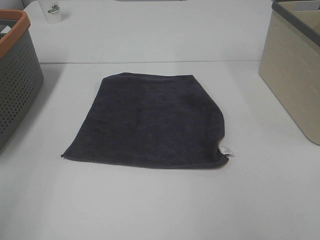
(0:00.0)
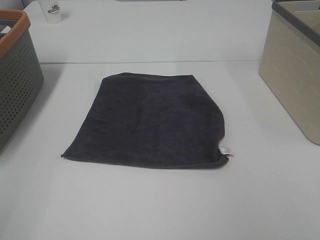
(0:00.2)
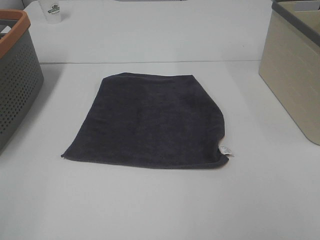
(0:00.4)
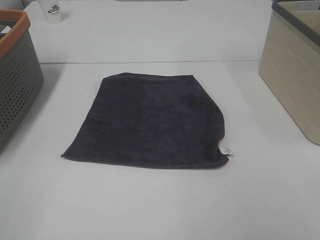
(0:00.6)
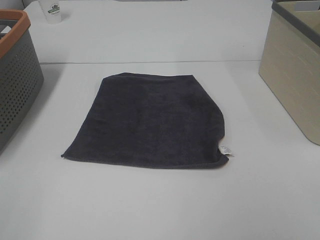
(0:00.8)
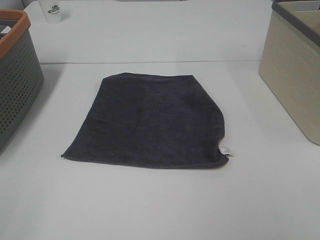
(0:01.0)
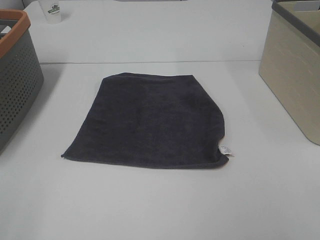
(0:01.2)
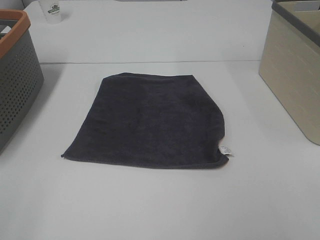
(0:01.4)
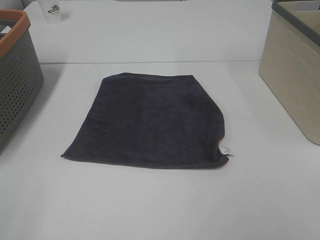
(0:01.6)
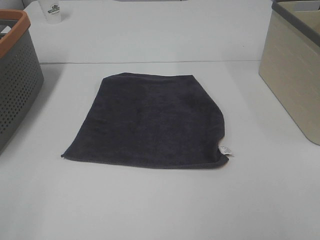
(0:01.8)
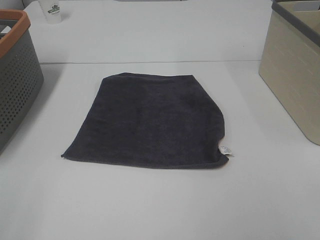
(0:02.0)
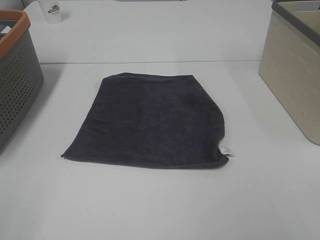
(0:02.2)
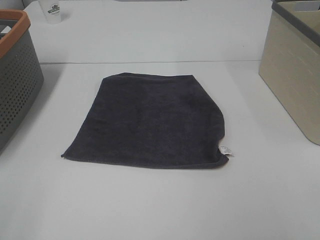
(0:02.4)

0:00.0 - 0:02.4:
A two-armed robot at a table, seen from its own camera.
Task of the whole recording: Remove the towel and place it.
0:01.2 - 0:02.4: Both grippers stay about where they are.

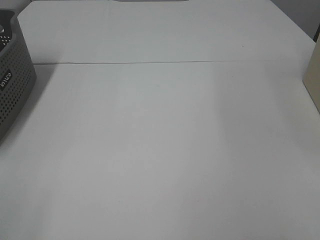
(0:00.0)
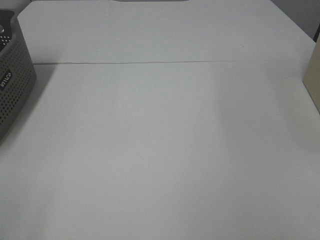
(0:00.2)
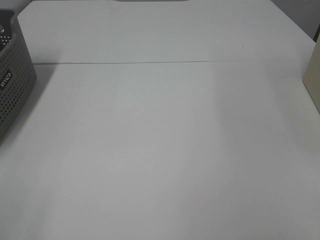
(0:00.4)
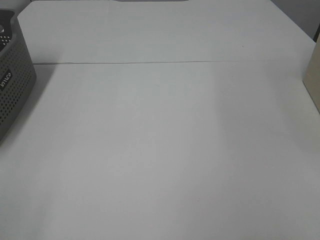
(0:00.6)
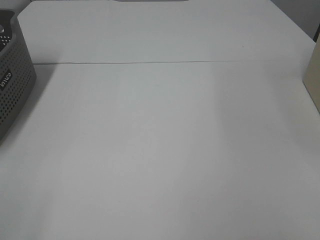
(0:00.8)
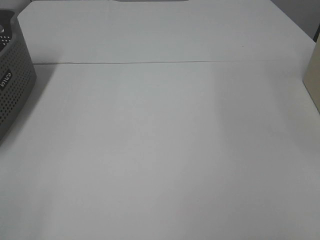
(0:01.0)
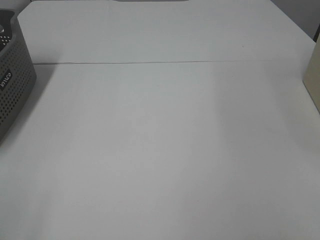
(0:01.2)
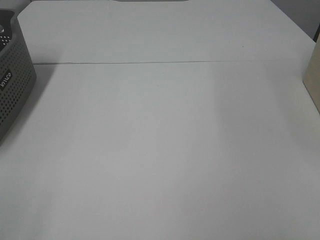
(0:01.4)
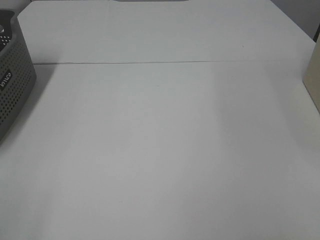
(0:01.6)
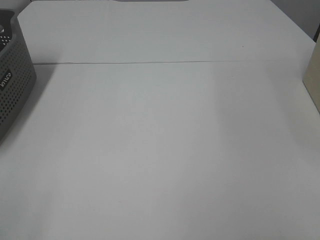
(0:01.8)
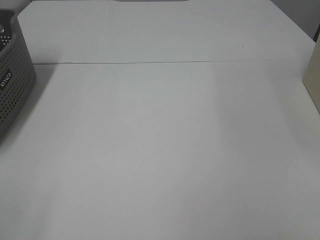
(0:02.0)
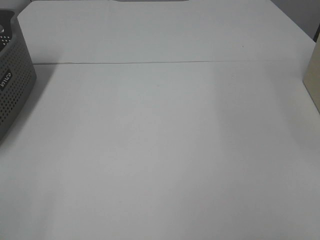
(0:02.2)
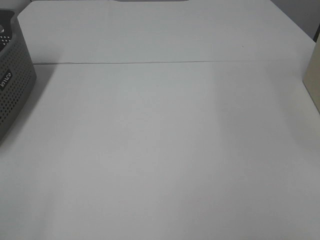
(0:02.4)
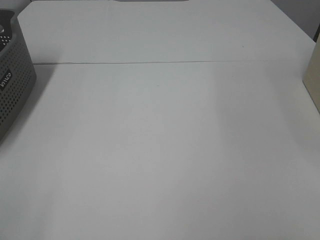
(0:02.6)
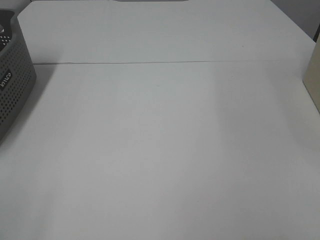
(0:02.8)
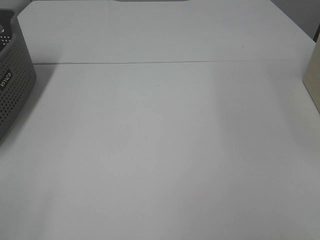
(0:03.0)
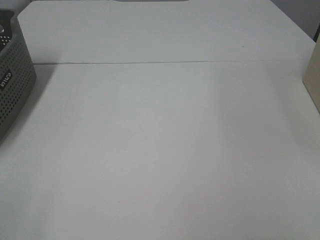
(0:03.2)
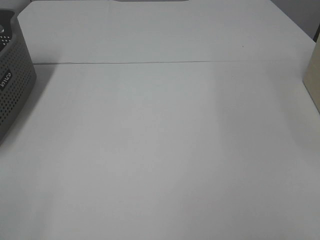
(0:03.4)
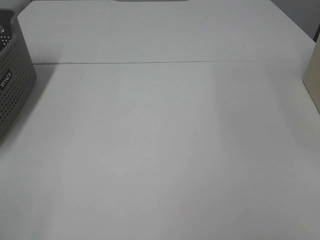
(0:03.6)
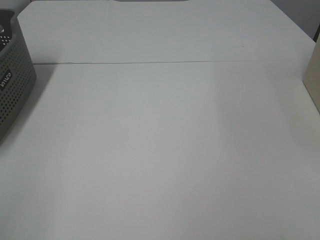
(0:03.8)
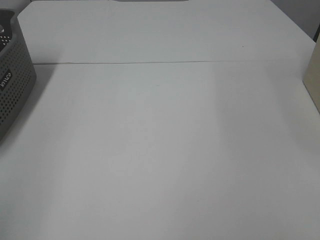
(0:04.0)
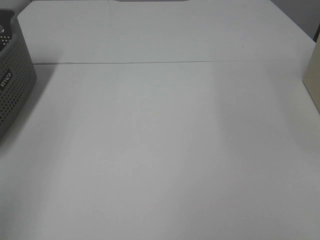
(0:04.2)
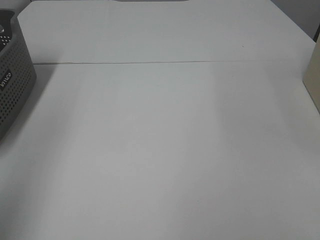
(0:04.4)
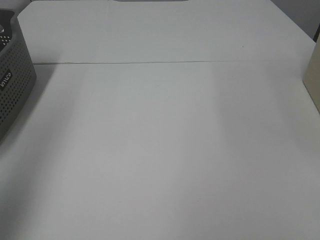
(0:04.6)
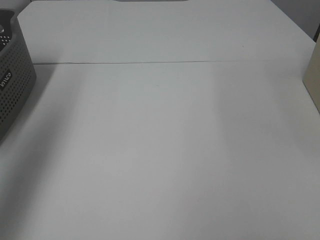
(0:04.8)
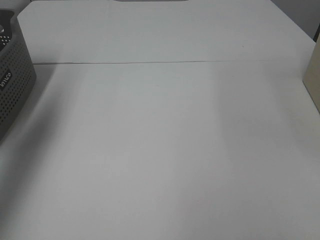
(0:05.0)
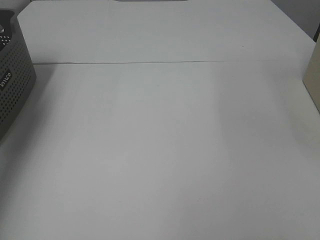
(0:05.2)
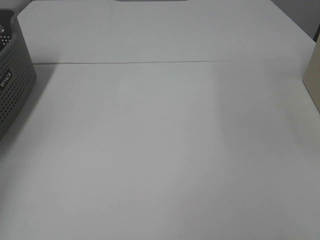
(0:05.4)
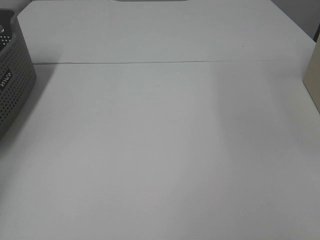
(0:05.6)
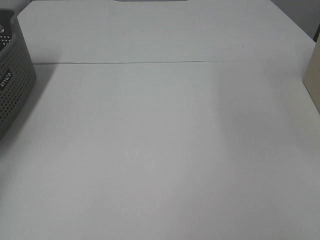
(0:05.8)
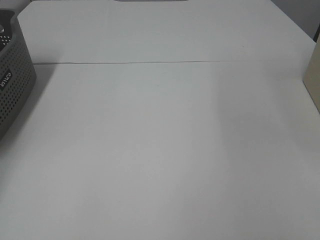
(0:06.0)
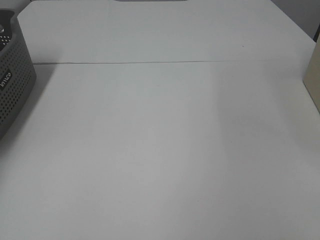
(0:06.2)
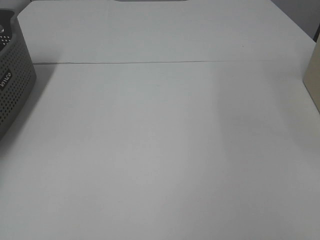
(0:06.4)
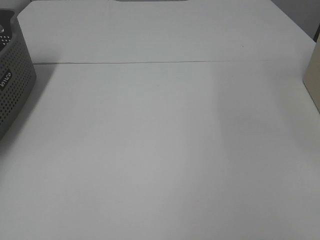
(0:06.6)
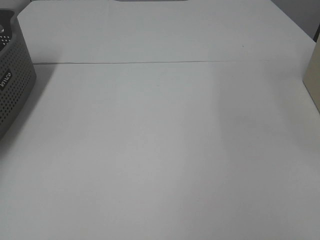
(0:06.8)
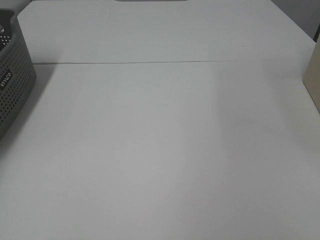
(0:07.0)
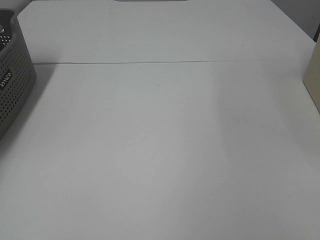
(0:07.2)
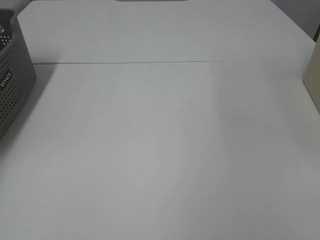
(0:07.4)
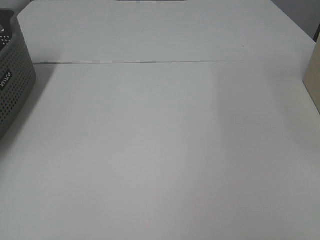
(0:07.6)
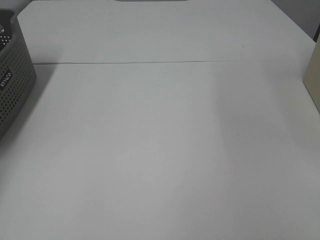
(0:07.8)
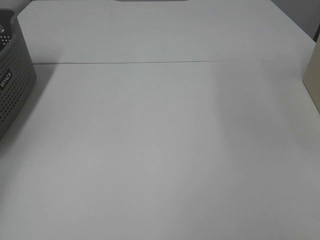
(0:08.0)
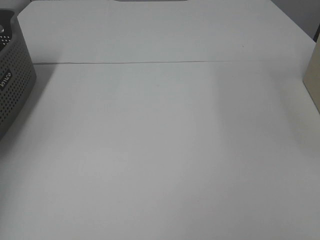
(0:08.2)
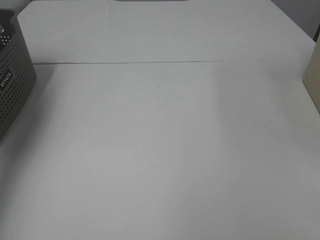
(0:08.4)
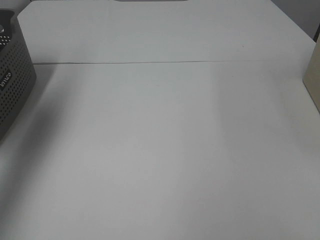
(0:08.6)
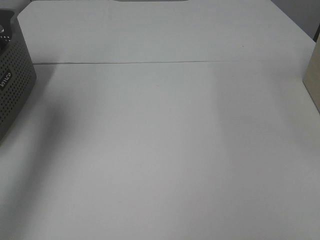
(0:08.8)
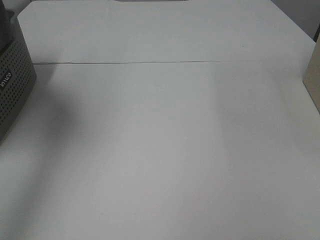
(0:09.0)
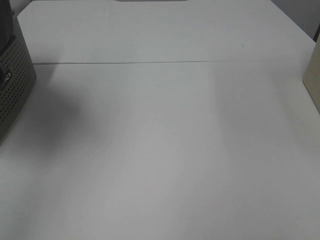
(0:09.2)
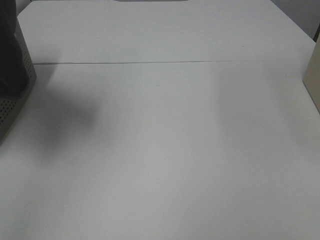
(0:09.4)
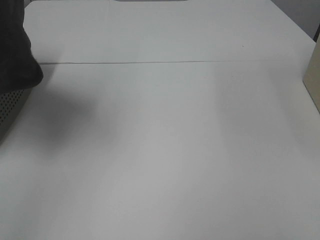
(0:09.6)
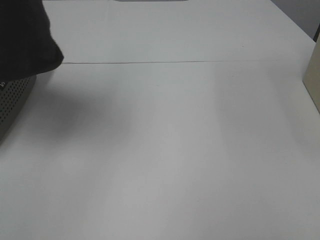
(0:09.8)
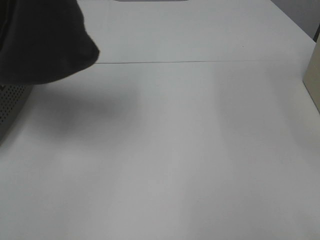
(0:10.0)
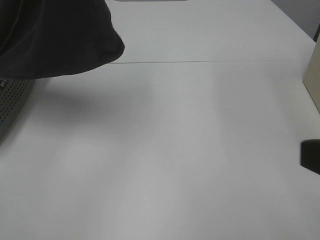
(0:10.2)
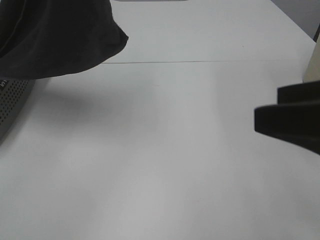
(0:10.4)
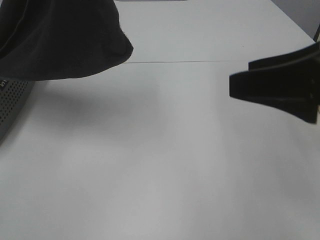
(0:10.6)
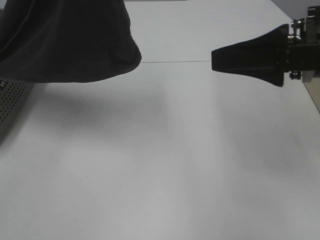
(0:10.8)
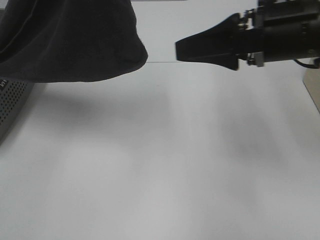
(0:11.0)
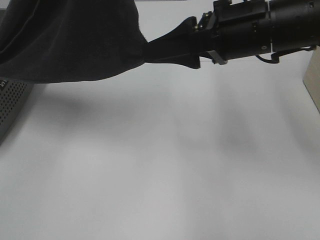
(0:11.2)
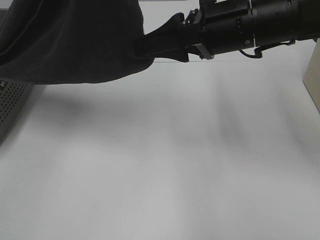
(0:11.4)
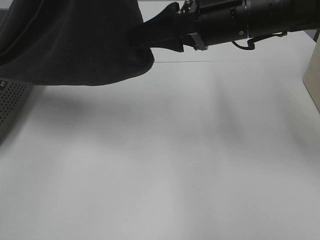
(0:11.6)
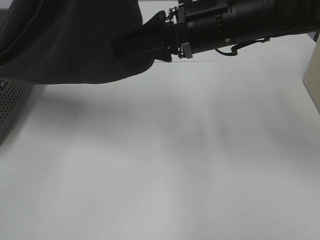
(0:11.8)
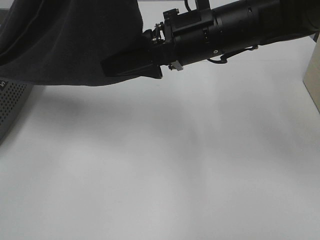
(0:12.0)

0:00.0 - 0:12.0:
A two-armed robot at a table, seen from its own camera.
Task of the whole recording: Remove the towel and place it.
0:00.0 - 0:03.0: Both grippers stay put.
0:03.0 - 0:04.4: The left gripper travels upward and forward by roughly 15 cm.
0:04.4 - 0:06.0: The left gripper travels forward, to the left and downward by some 40 cm.
0:07.6 - 0:09.0: The left gripper travels upward, to the right and backward by roughly 40 cm.
0:09.0 - 0:10.4: The right gripper goes some 15 cm forward and to the left; the left gripper travels to the right by about 10 cm.
0:10.4 - 0:12.0: The right gripper shifts approximately 25 cm forward and to the left.

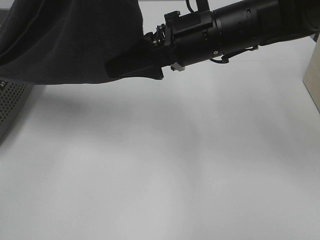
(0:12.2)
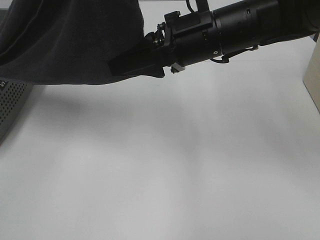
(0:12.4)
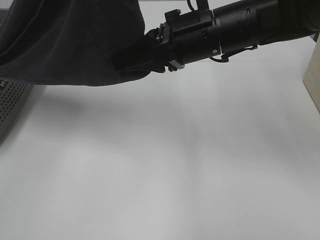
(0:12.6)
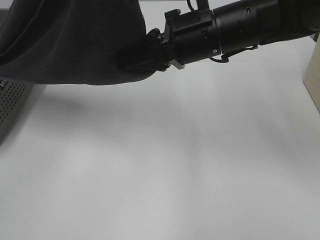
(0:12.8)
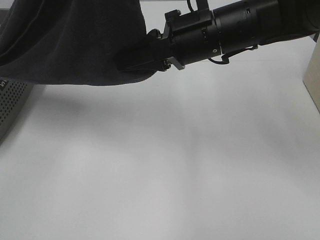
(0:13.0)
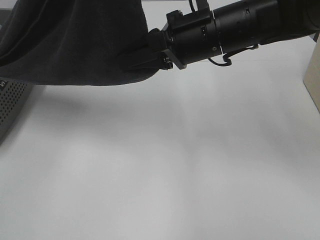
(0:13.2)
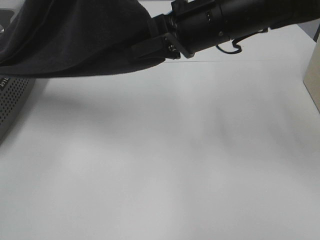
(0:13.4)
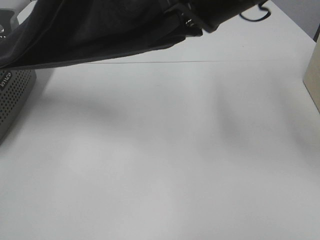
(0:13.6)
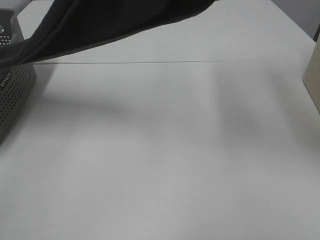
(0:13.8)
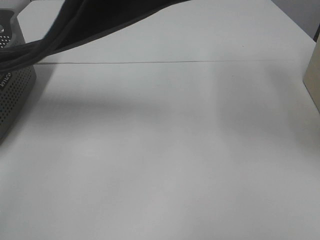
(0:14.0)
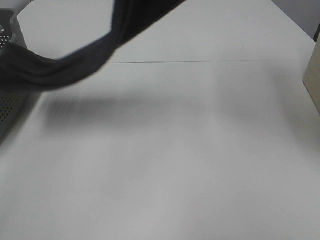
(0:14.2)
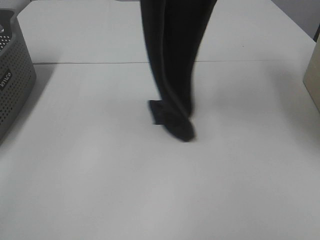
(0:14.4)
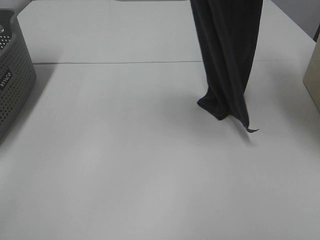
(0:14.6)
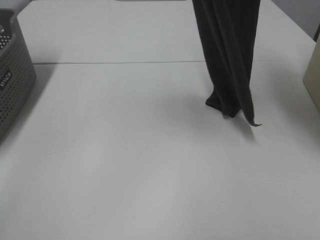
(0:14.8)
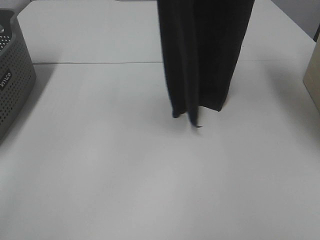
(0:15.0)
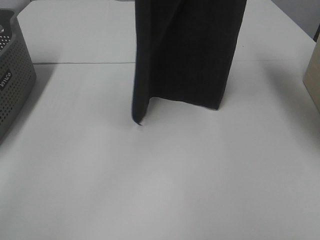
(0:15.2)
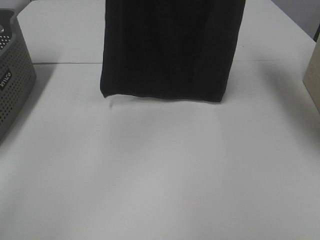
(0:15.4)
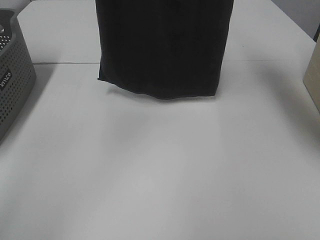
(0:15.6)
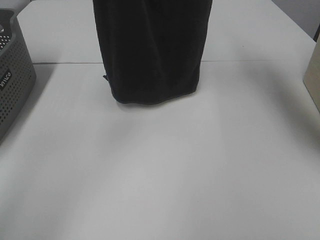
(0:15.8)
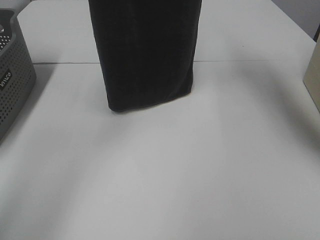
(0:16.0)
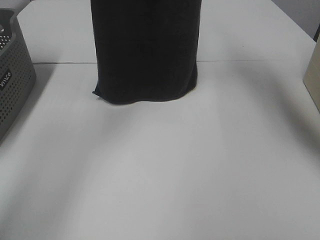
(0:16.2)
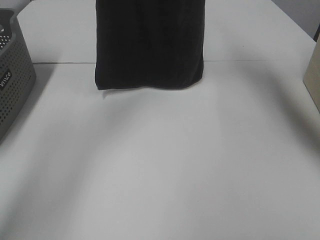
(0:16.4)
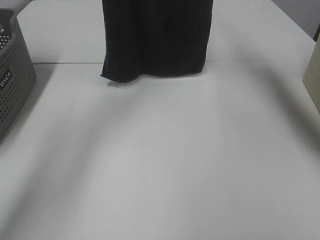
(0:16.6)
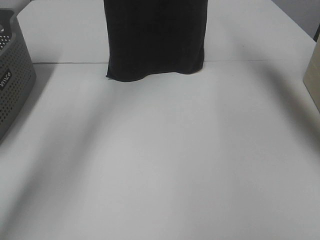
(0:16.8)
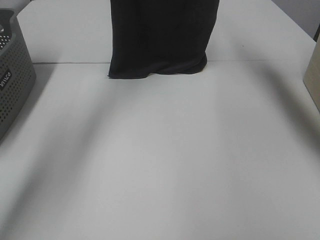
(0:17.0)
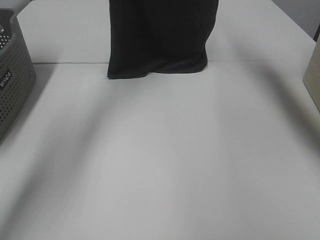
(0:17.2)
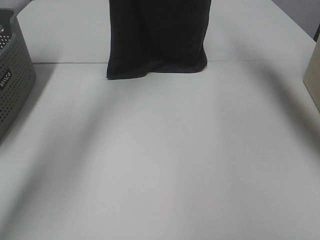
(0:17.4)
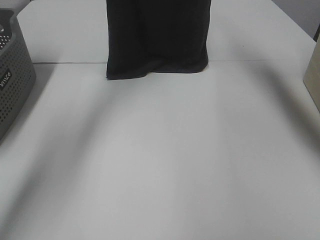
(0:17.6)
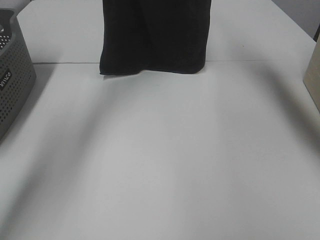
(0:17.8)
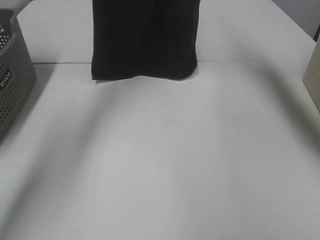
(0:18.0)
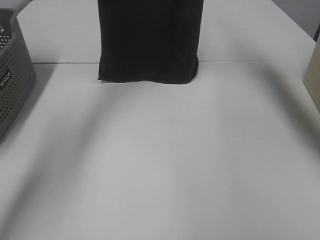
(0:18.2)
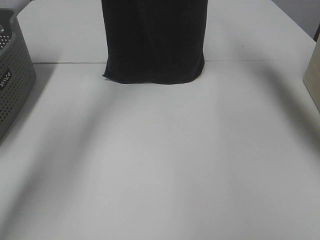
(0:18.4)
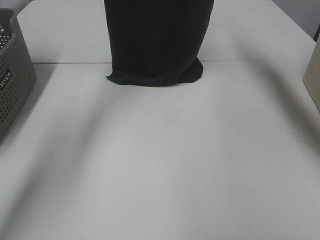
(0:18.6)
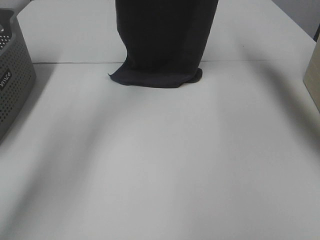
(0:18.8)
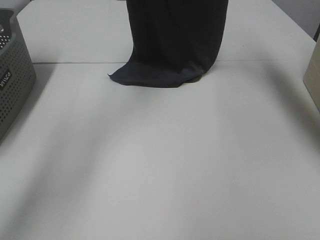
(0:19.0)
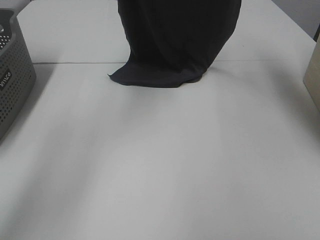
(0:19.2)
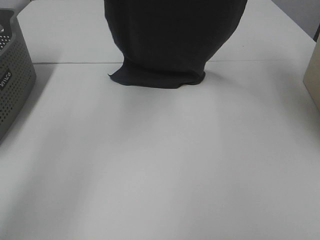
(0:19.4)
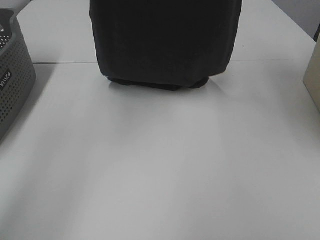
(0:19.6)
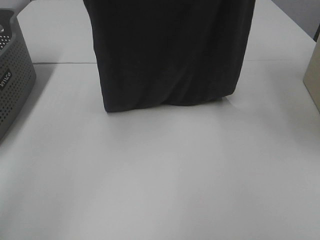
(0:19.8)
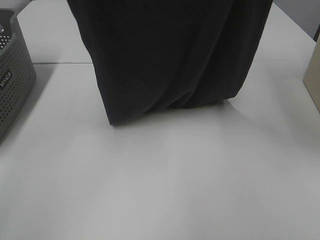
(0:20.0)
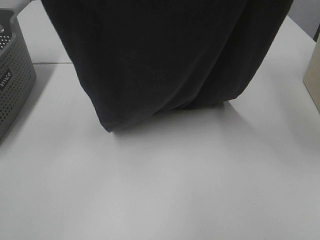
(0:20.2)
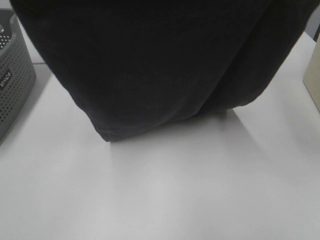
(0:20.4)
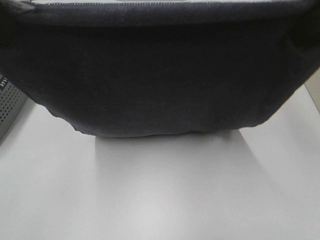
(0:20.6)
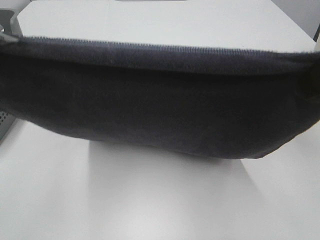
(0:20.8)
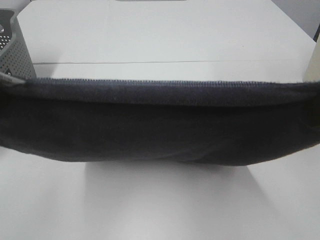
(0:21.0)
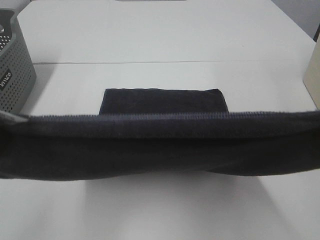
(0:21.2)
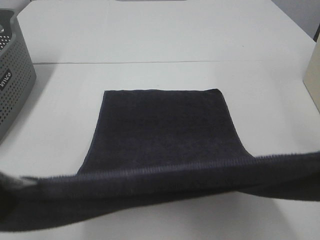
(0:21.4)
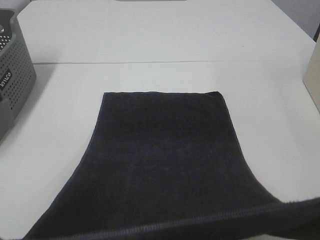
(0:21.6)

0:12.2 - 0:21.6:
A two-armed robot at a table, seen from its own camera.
Task of the whole recording: Remove the towel and place it.
Step, 0:12.2 - 0:14.4: Right hand: grab a corner of the grey towel and straighten it.
Step, 0:14.6 - 0:19.0: Left hand: spread the grey towel flat on the table.
Step, 0:14.6 - 0:19.0: Right hand: spread the grey towel flat on the table.
0:12.2 - 0:13.8: The left gripper moves about 5 cm. Meanwhile the right gripper shifts some 15 cm upward, and closes its fingers.
0:13.8 - 0:15.4: The right gripper heads upward, covering about 15 cm; the left gripper moves forward, about 5 cm.
0:15.4 - 0:17.0: The two grippers go approximately 15 cm forward and downward.
0:17.0 - 0:18.4: The grippers stay close to where they were, moving slightly.
0:18.4 - 0:20.0: The grippers both shift backward by roughly 20 cm.
0:20.0 - 0:21.6: The right gripper travels downward and backward by approximately 25 cm. Meanwhile the left gripper goes about 30 cm backward and downward.
